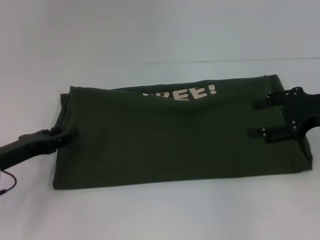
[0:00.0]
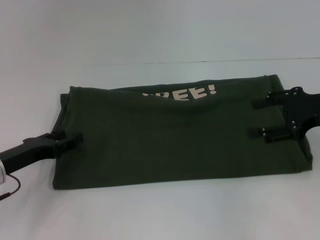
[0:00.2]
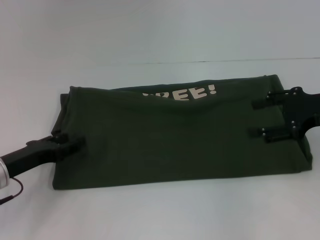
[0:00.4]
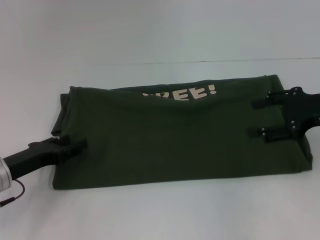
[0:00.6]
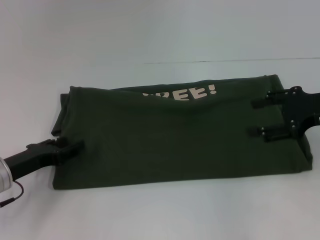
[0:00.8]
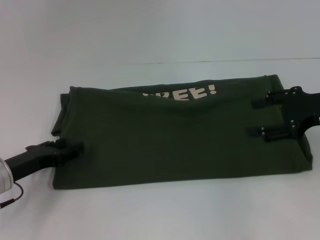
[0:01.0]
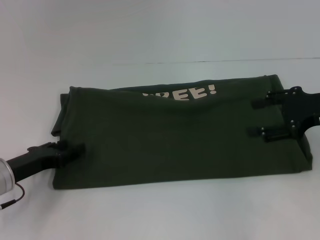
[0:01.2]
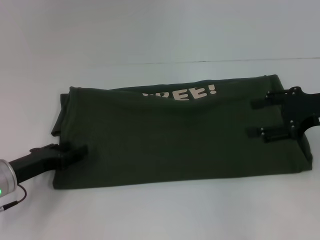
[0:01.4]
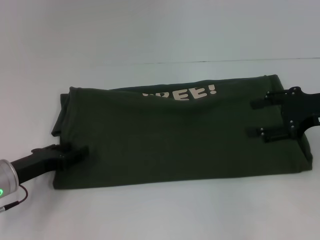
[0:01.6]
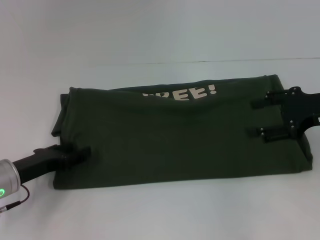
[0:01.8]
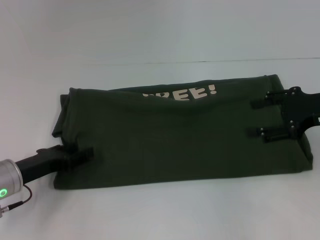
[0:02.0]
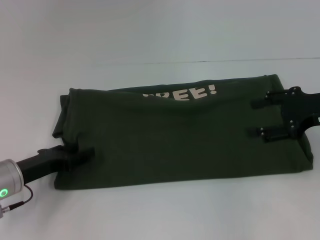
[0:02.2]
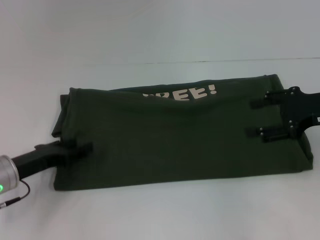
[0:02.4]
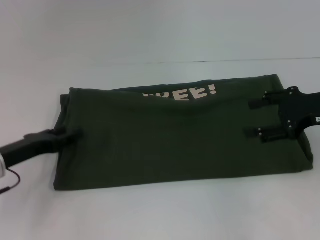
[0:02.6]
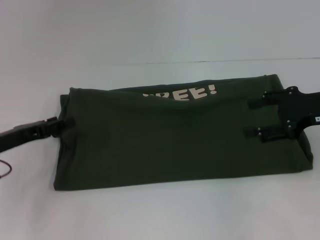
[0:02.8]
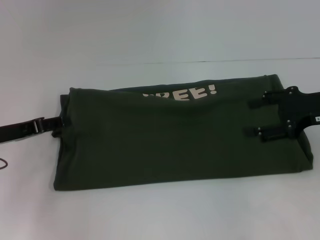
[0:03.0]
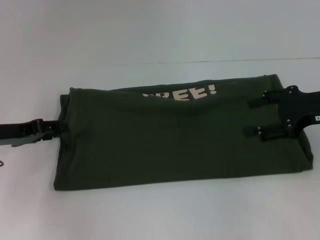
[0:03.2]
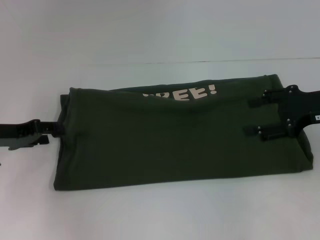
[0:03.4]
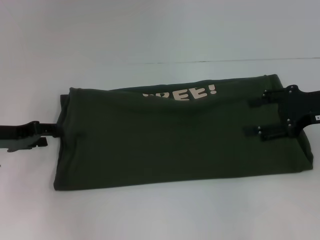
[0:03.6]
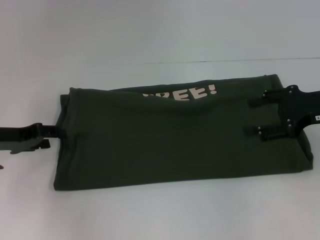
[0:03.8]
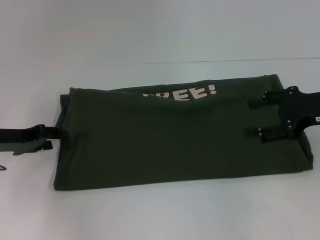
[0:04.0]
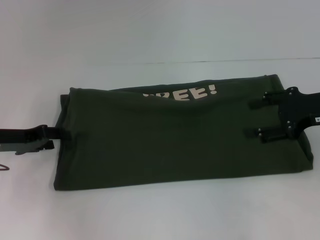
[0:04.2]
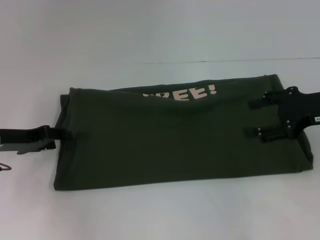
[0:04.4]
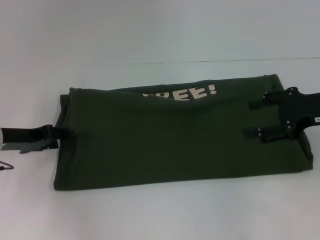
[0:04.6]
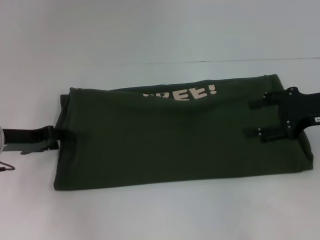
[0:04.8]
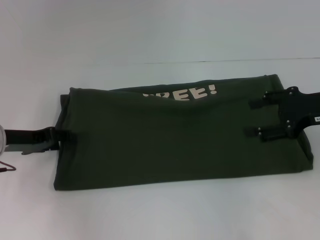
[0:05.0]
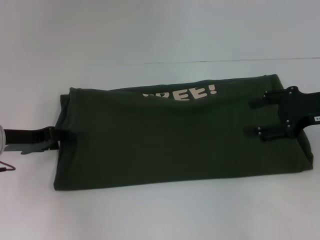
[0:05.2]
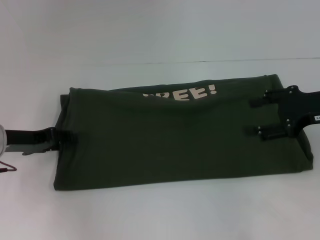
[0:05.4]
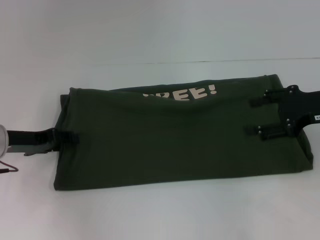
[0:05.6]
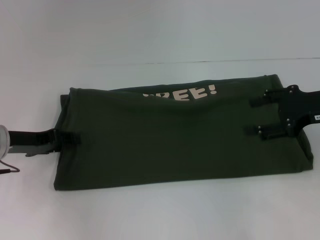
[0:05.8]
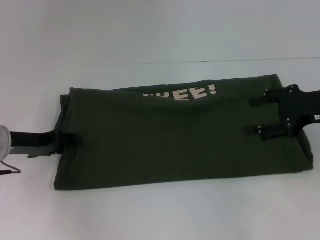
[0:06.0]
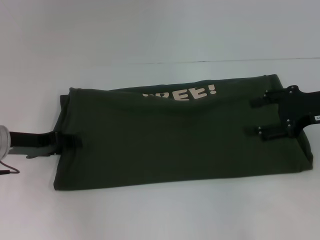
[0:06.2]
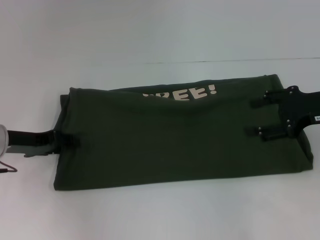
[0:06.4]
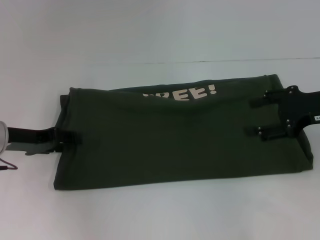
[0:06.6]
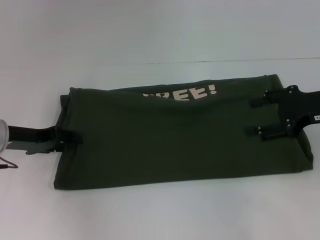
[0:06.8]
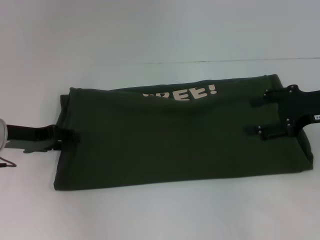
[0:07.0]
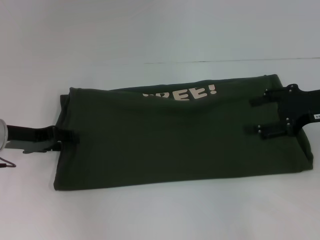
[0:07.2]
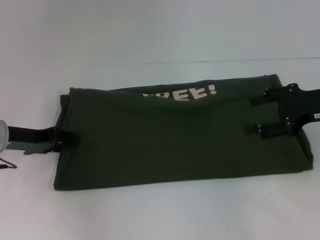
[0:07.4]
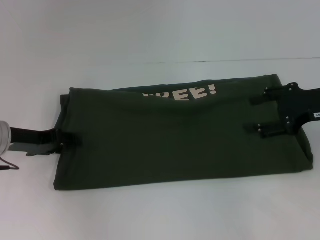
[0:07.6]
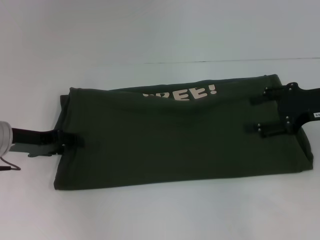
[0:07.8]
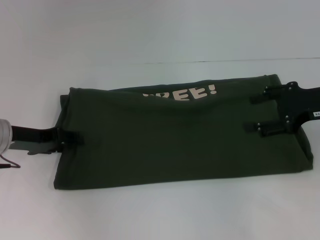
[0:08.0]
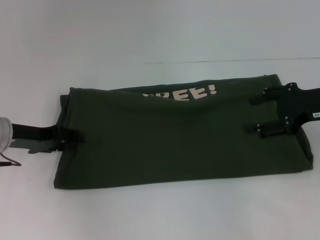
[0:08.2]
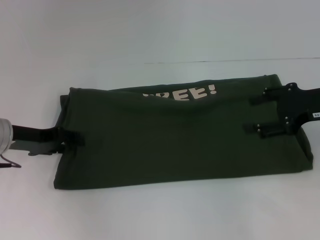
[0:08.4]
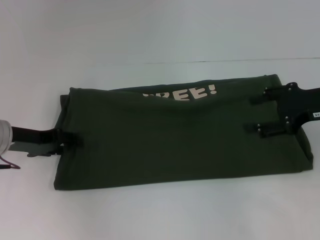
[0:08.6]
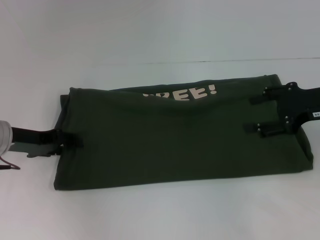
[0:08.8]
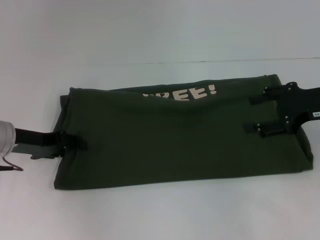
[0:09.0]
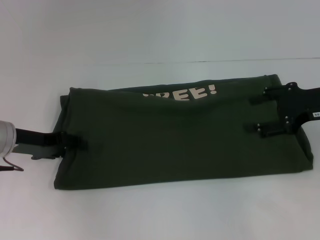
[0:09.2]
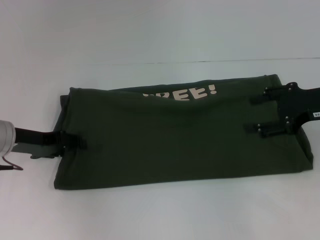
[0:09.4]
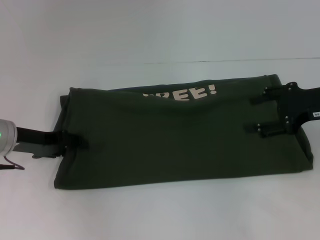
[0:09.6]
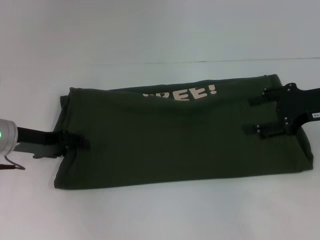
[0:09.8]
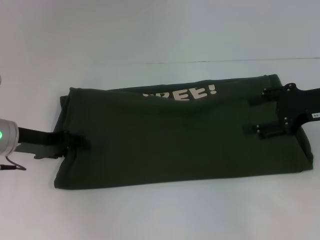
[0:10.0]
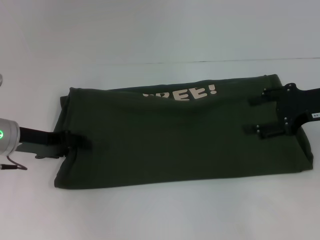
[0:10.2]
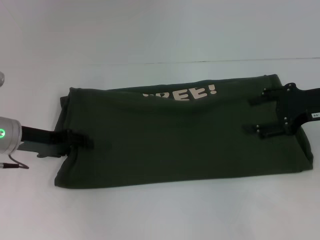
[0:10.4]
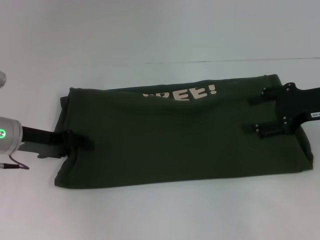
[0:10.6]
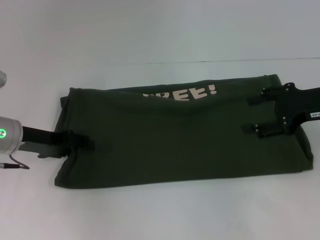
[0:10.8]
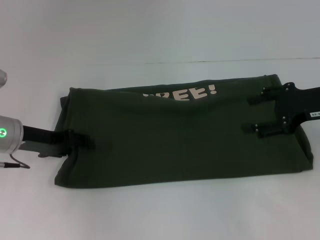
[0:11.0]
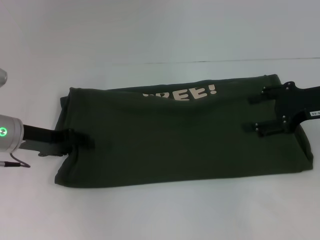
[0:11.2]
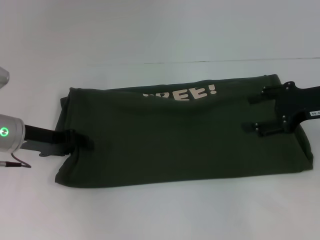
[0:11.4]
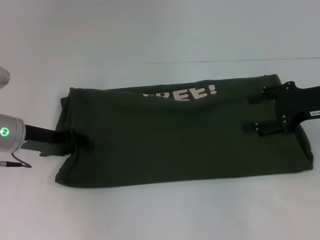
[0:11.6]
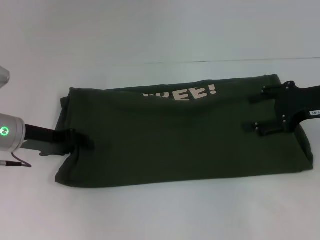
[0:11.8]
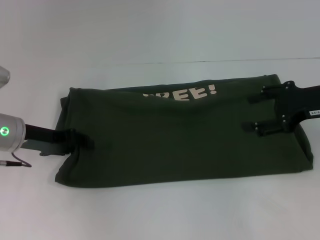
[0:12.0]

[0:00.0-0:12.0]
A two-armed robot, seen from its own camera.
0:00.0 to 0:01.6: The grippers make only small movements.
0:01.6 to 0:03.0: The left gripper is displaced upward by about 5 cm.
0:03.0 to 0:06.0: There are only small adjustments of the grippers.
0:06.0 to 0:07.6: Neither gripper changes place.
0:07.6 to 0:09.0: Both grippers stay about where they are.
0:09.0 to 0:10.4: The two grippers keep their place.
0:10.4 to 0:12.0: Neither gripper changes place.

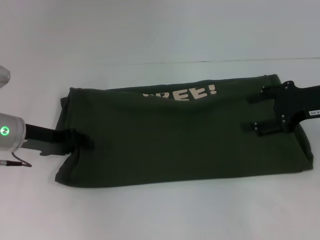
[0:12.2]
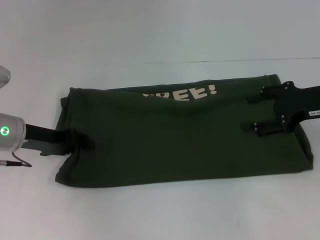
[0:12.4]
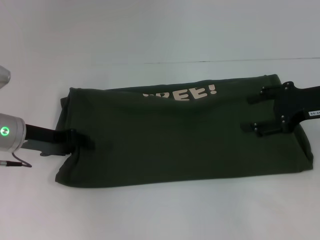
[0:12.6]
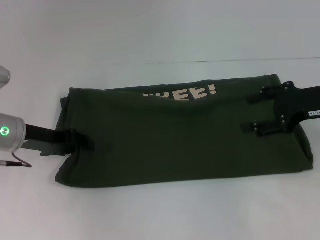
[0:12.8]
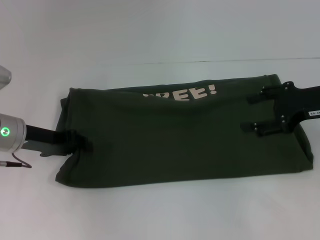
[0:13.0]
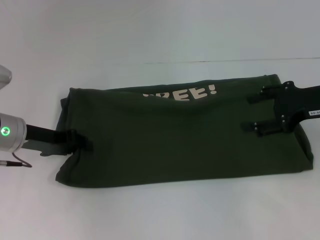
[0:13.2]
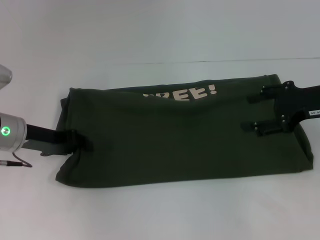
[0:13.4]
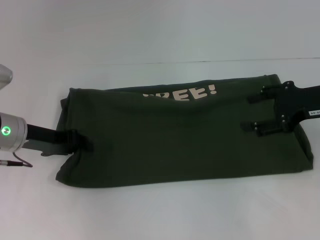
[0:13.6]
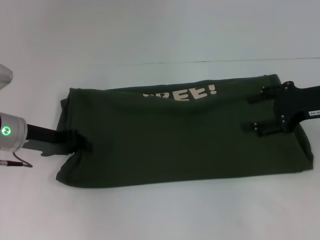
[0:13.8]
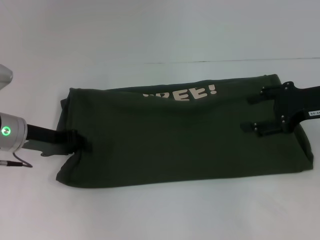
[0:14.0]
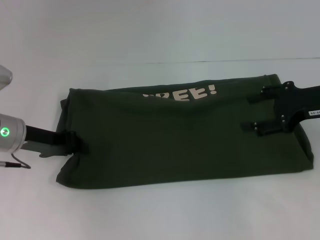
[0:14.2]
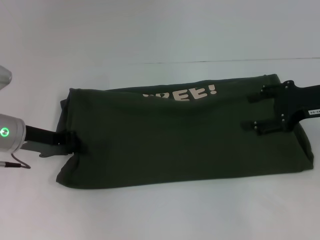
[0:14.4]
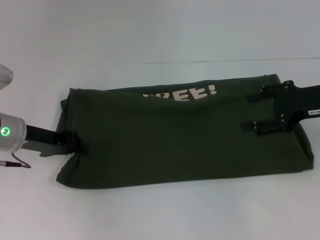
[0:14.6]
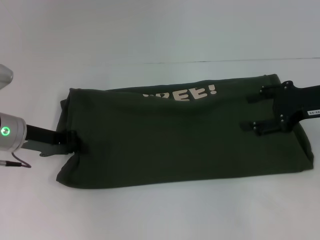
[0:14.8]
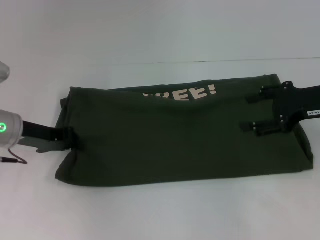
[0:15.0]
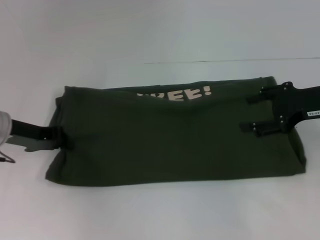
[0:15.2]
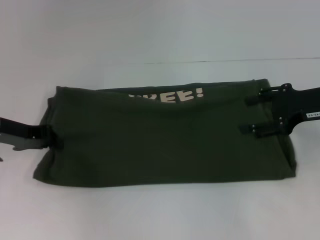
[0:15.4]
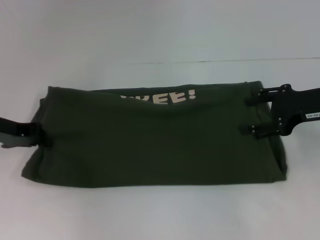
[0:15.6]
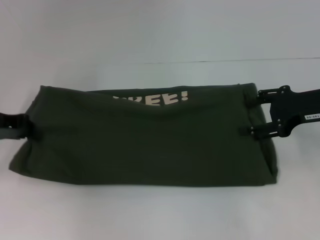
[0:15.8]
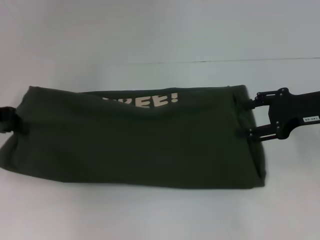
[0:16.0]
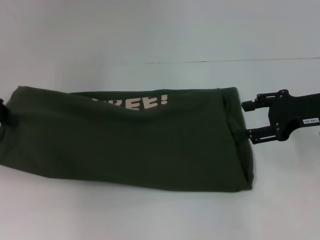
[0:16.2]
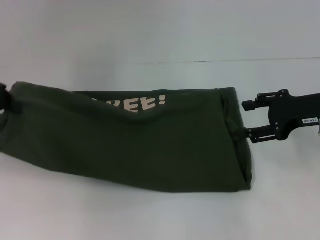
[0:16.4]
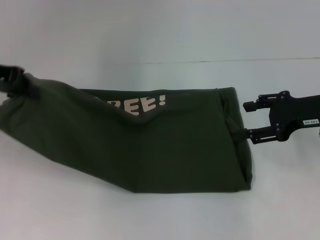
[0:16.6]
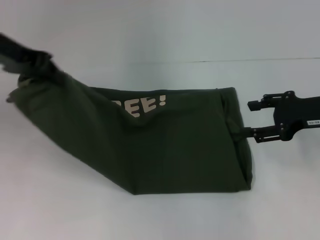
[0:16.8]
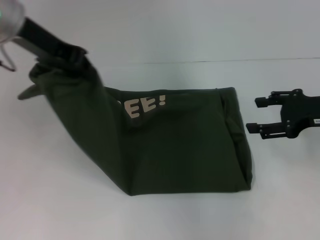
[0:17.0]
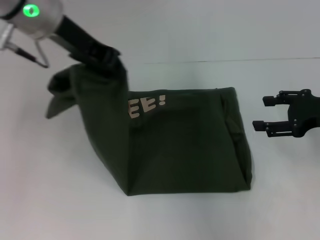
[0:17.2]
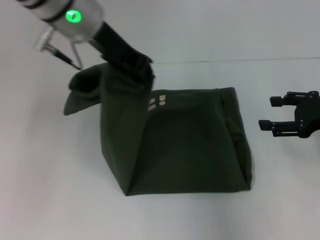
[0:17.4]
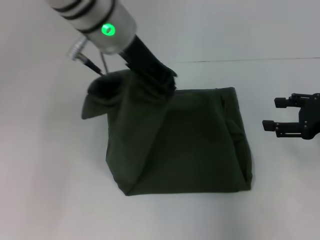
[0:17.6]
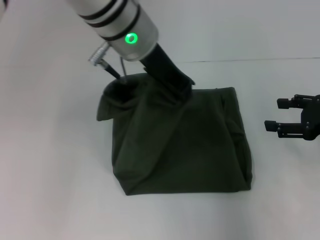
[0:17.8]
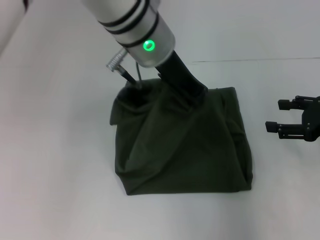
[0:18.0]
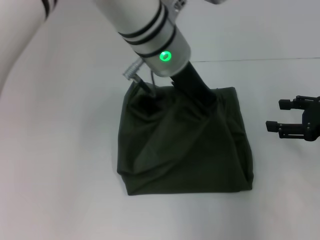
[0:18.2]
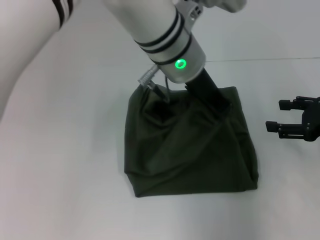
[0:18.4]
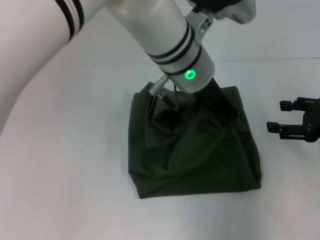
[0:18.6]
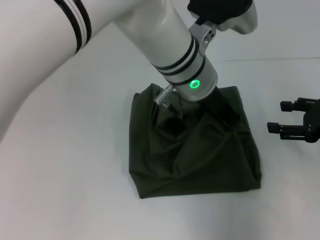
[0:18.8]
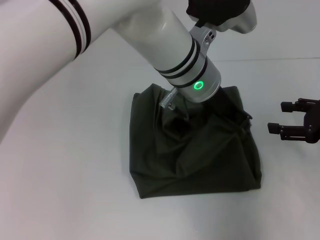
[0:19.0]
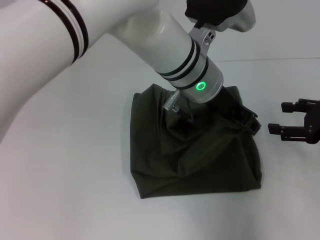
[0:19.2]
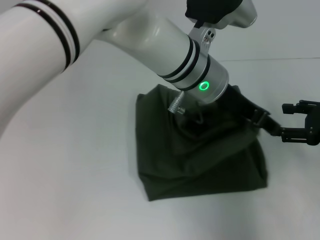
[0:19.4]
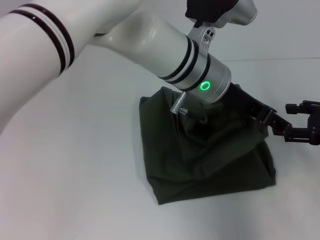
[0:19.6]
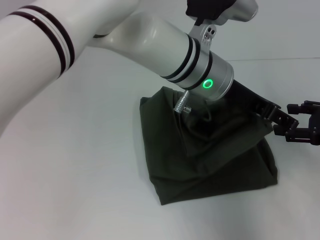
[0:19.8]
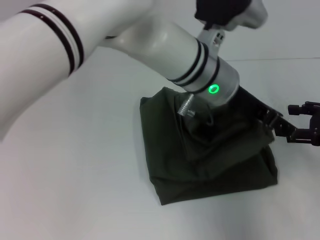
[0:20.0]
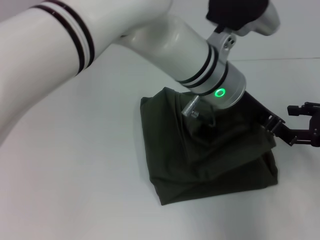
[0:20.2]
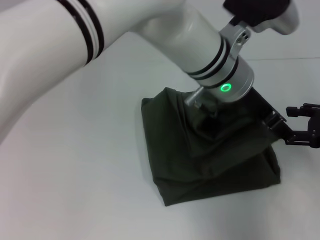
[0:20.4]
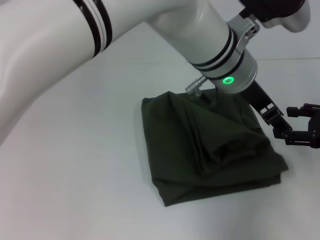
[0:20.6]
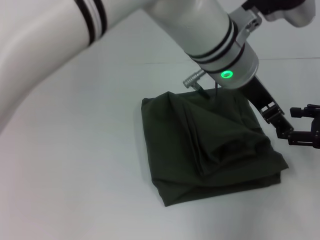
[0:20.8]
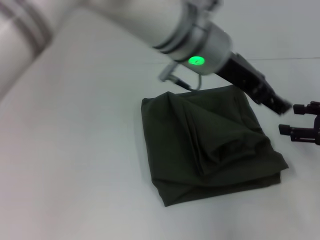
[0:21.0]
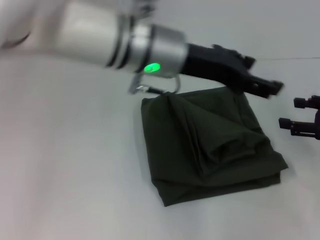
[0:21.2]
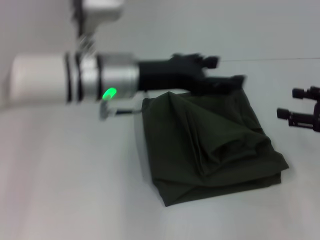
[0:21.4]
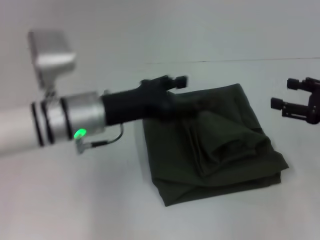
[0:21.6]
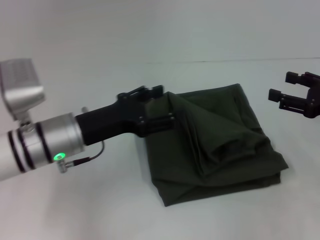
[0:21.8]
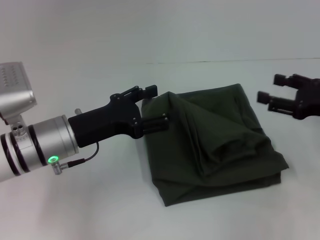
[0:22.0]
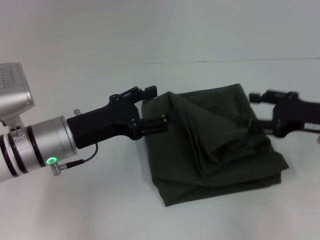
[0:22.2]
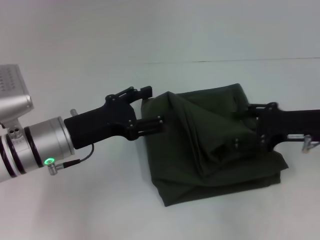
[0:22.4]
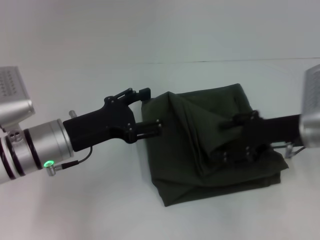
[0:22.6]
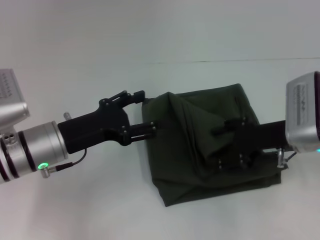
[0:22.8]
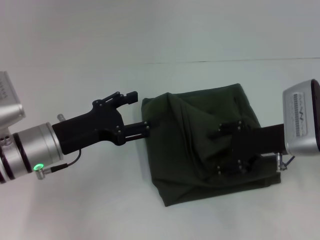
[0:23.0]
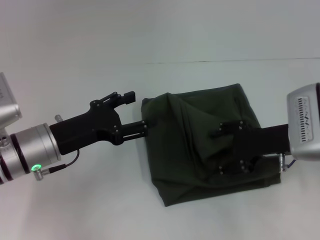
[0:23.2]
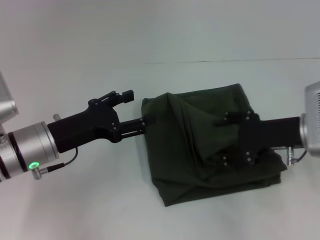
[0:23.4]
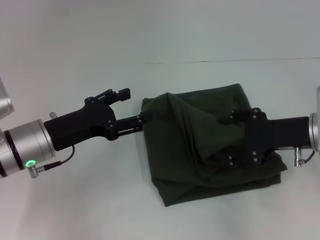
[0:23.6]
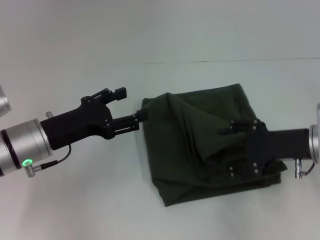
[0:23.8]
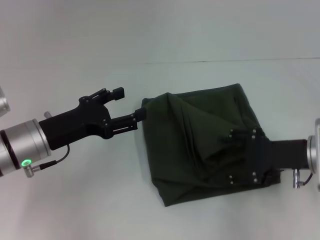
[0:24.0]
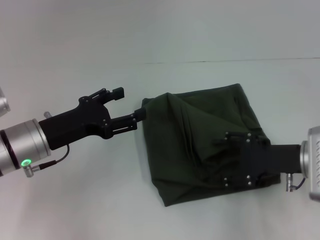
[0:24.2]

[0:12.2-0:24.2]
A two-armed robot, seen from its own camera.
Step, 0:12.2 to 0:20.8: Fold the clothes with your left hand.
0:12.2 to 0:13.8: Neither gripper changes place.
0:13.8 to 0:15.2: There are only small adjustments of the grippers.
0:15.2 to 0:16.6: The left gripper heads upward, covering approximately 15 cm.
0:16.6 to 0:18.2: The left gripper goes approximately 30 cm to the right, while the right gripper shifts by some 5 cm.
0:18.2 to 0:19.8: The left gripper moves some 5 cm, and opens up.
0:19.8 to 0:21.2: The left gripper goes about 5 cm to the left.
0:21.2 to 0:22.6: The left gripper shifts about 20 cm to the left and downward. Meanwhile the right gripper heads to the left, covering some 10 cm.
0:22.6 to 0:24.2: The right gripper ends up roughly 5 cm from where it was.
